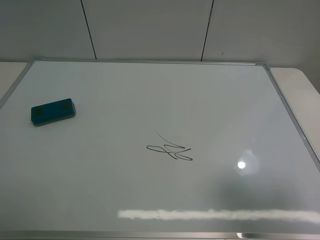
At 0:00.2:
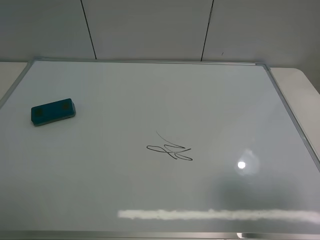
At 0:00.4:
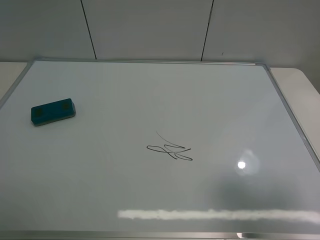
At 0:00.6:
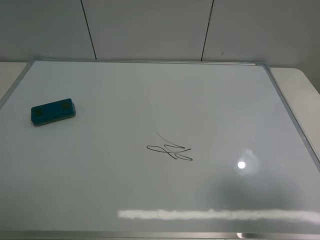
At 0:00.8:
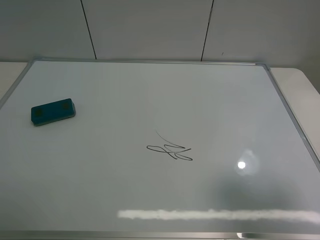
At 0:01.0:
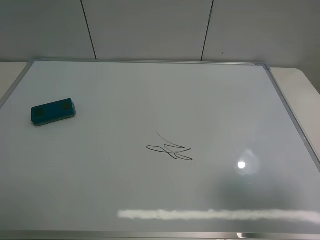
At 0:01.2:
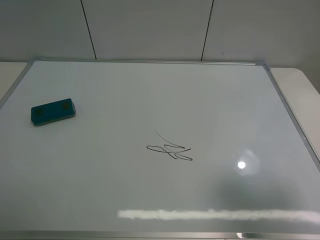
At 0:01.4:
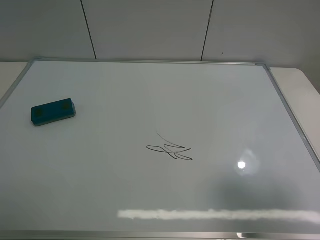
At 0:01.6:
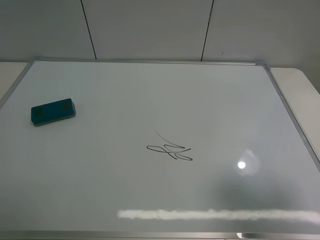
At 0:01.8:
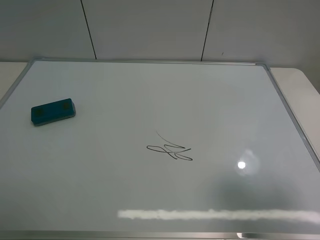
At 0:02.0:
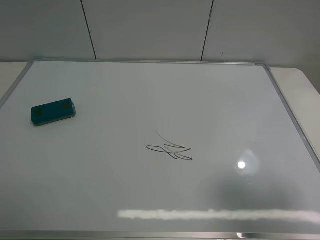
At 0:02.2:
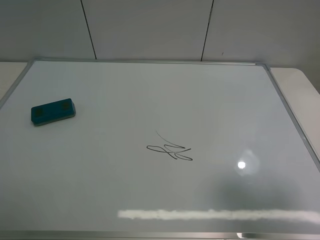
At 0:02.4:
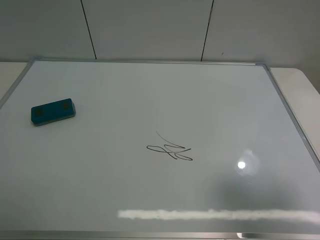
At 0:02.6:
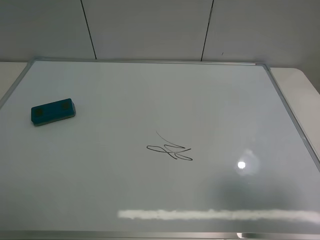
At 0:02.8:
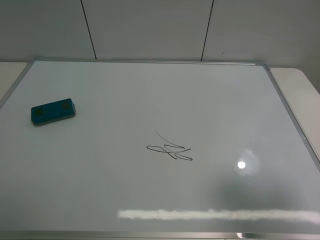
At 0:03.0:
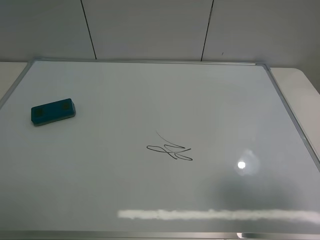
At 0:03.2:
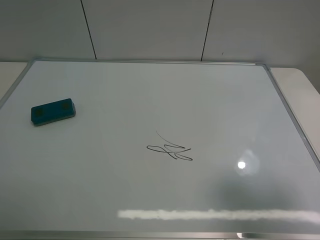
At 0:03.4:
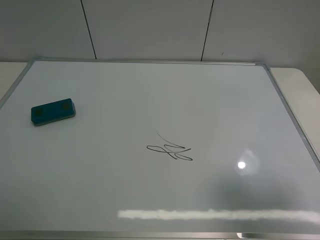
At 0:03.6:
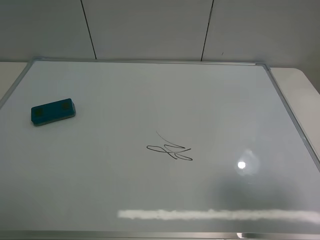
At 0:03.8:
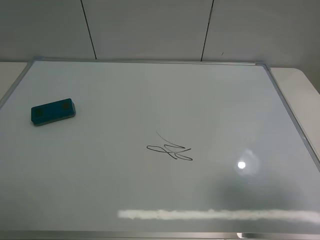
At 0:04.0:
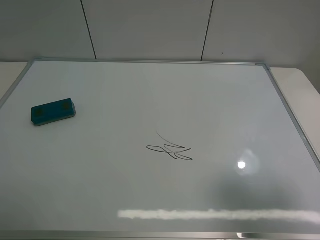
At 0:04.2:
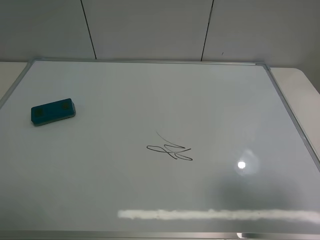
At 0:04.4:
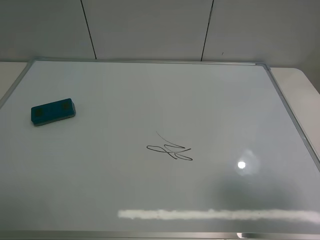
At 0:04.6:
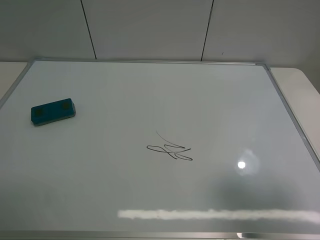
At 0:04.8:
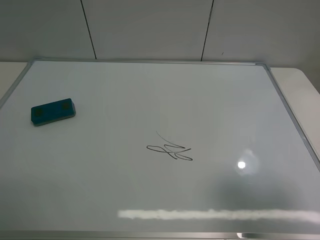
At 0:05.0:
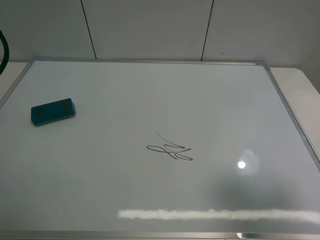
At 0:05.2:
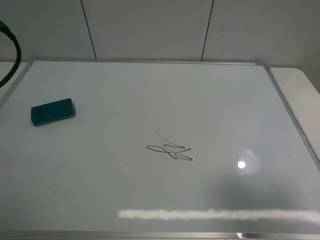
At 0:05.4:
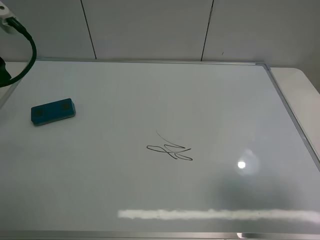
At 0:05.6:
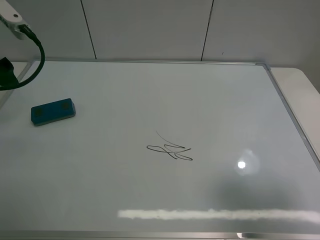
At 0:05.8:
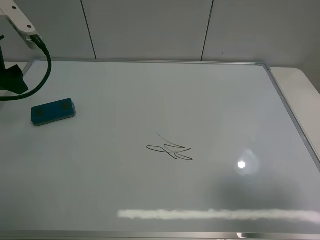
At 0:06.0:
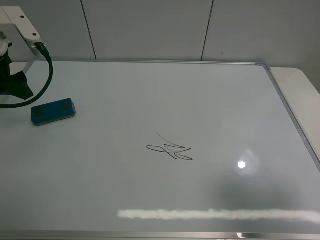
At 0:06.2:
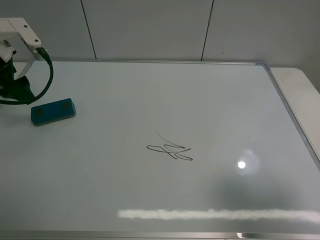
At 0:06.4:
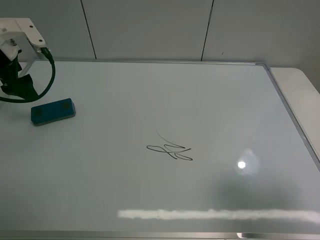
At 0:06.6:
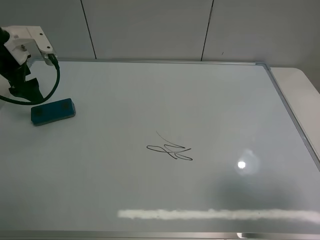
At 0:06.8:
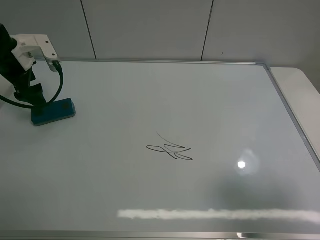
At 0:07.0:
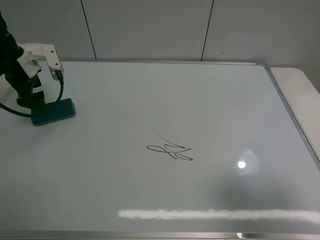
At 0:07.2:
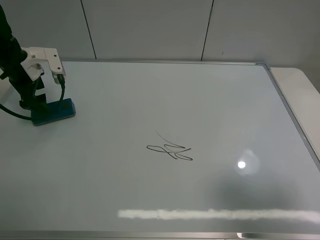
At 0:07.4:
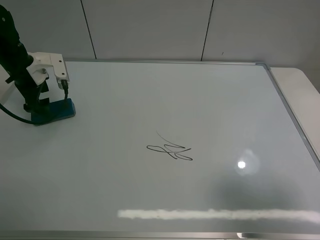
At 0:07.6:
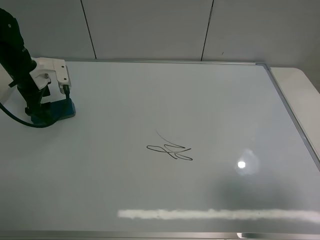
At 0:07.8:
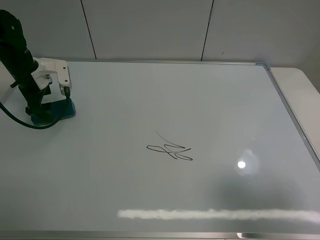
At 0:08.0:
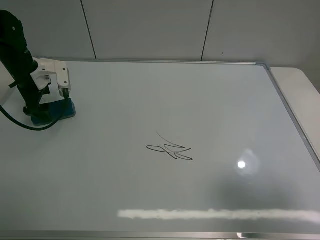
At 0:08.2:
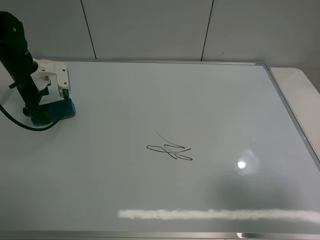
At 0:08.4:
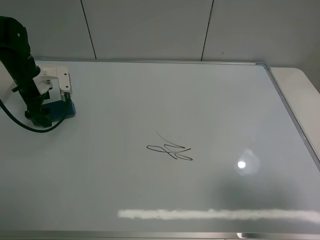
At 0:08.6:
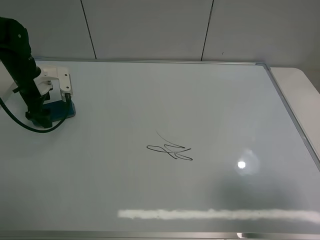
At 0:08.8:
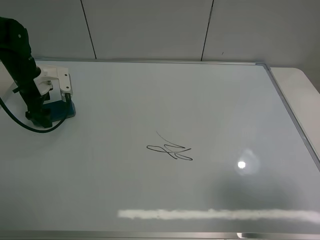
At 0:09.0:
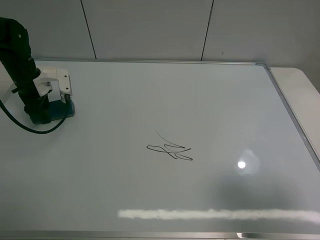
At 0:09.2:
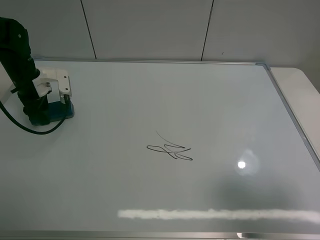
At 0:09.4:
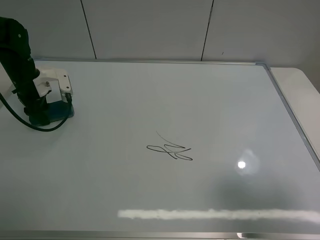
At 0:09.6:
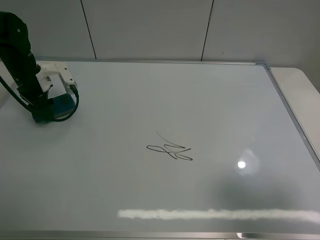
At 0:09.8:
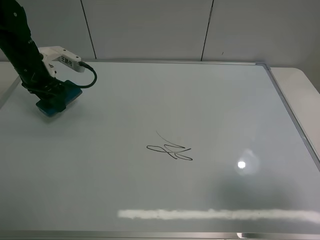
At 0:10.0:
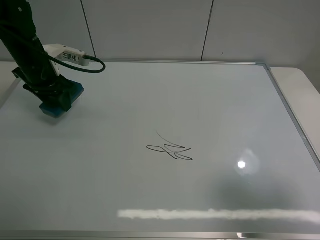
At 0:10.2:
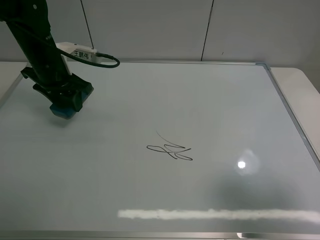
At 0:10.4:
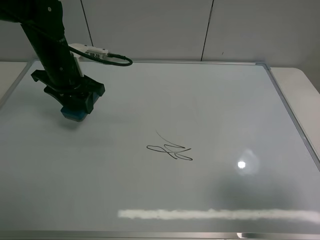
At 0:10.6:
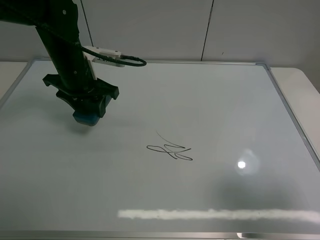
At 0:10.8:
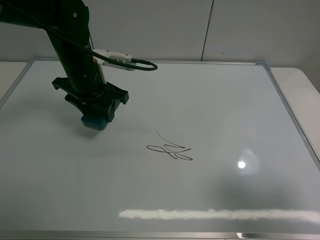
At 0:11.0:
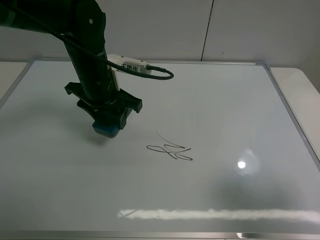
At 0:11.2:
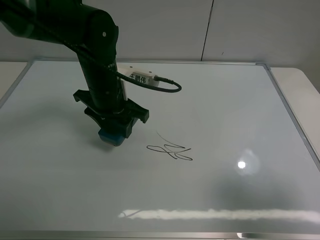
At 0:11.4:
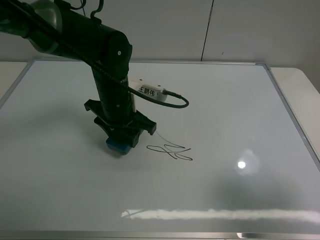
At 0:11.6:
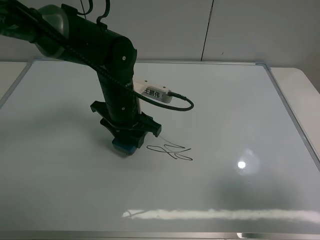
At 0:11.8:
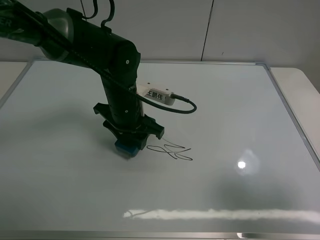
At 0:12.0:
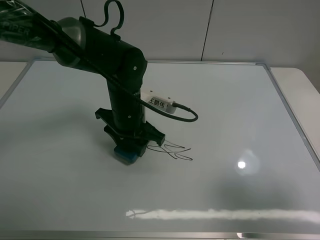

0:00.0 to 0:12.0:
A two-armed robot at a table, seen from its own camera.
Task of the whole recording: use the left claw to pick up the whiteboard eraser, wipe the notes on the whiteboard clean, and then put them back in place.
Step, 0:00.0 to 0:09.0: Grasp the eraser with the left gripper.
0:00.0 to 0:03.0: Both grippers stay put.
0:04.4 to 0:06.0: The left gripper is displaced forward and downward by roughly 20 cm.
0:06.0 to 0:07.6: The left gripper shifts about 15 cm downward and forward.
0:07.6 to 0:09.0: The left gripper closes its fingers.
0:09.0 to 0:10.4: The left gripper moves to the right and upward, roughly 15 cm.
0:10.4 to 0:12.0: The left gripper shifts about 15 cm to the right, downward and backward.

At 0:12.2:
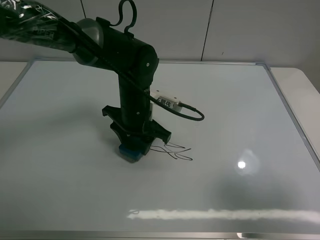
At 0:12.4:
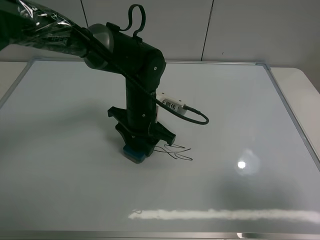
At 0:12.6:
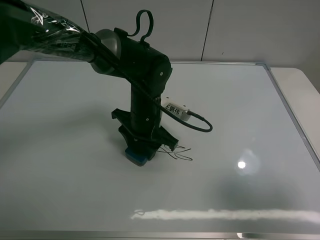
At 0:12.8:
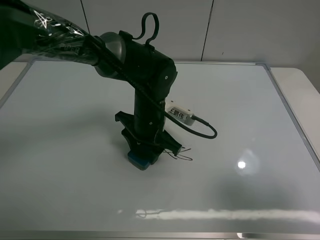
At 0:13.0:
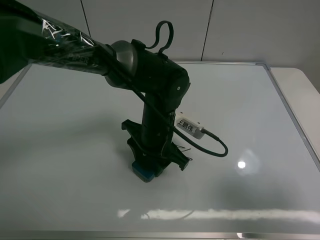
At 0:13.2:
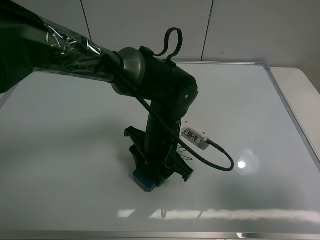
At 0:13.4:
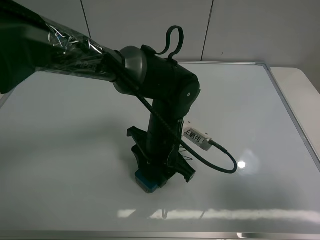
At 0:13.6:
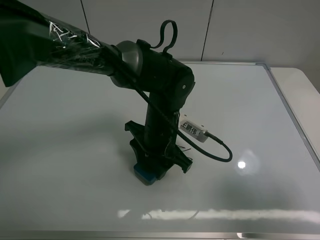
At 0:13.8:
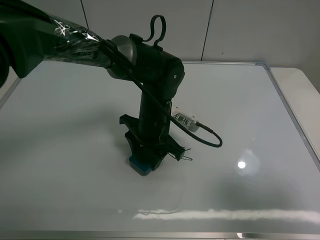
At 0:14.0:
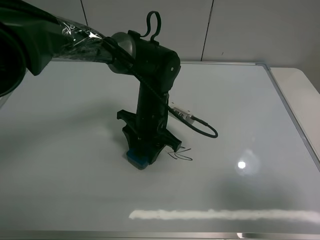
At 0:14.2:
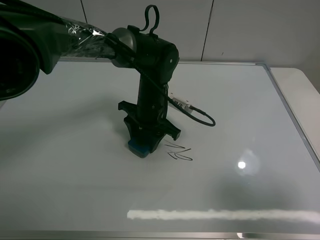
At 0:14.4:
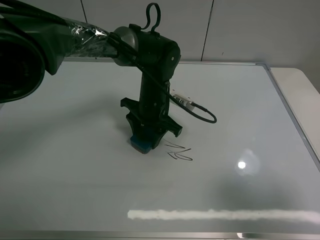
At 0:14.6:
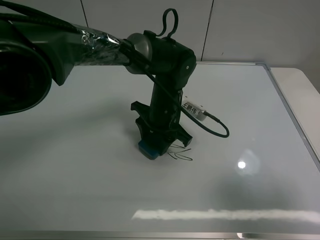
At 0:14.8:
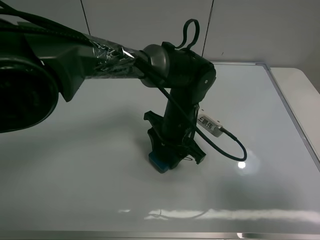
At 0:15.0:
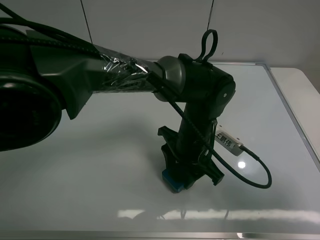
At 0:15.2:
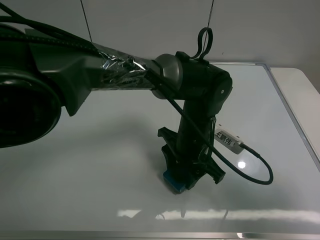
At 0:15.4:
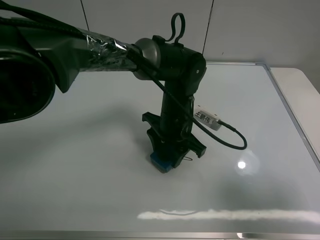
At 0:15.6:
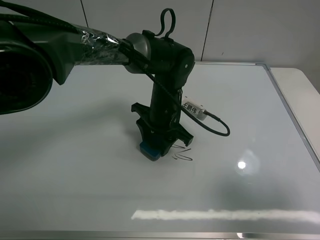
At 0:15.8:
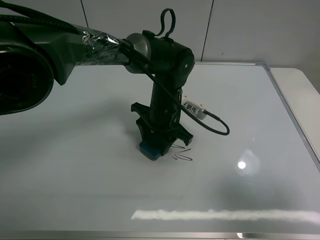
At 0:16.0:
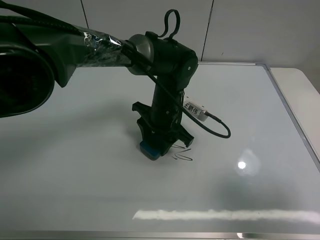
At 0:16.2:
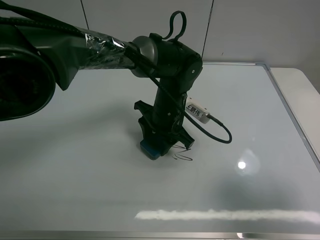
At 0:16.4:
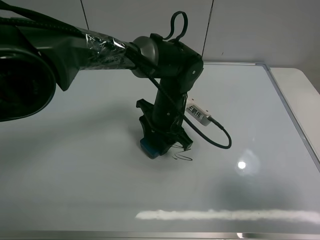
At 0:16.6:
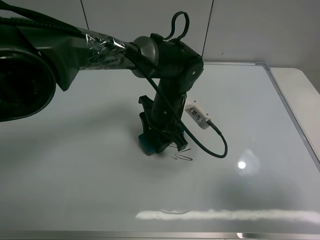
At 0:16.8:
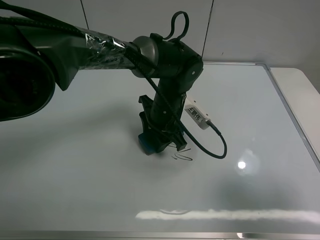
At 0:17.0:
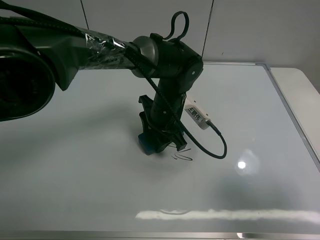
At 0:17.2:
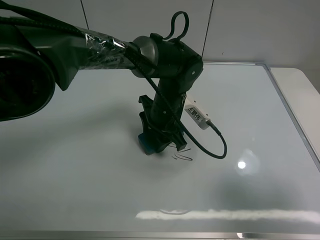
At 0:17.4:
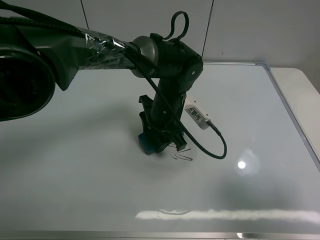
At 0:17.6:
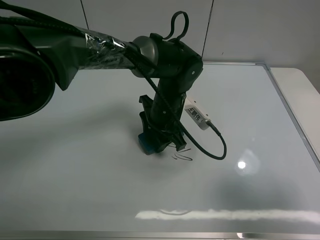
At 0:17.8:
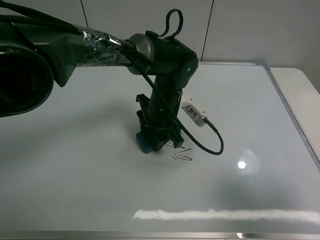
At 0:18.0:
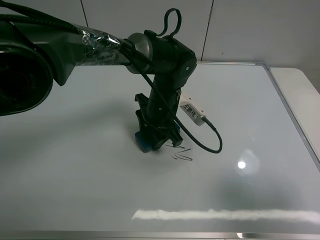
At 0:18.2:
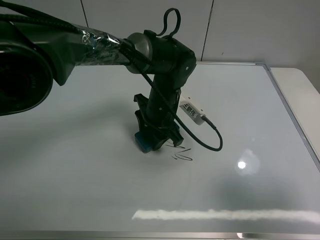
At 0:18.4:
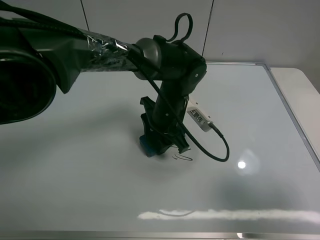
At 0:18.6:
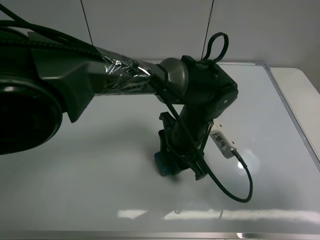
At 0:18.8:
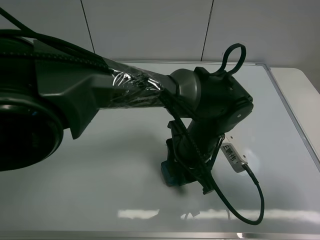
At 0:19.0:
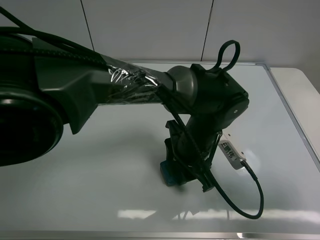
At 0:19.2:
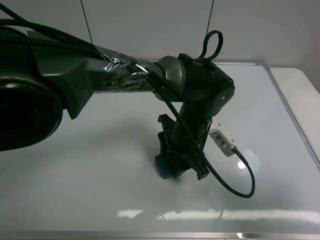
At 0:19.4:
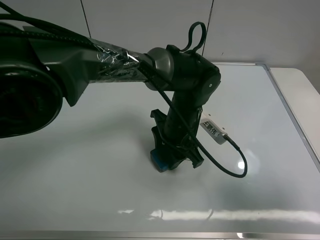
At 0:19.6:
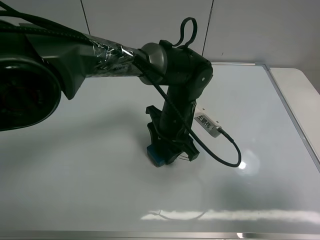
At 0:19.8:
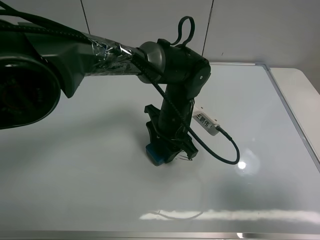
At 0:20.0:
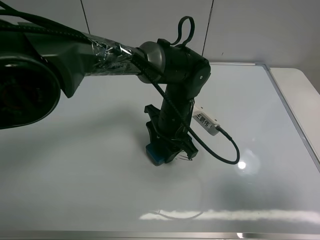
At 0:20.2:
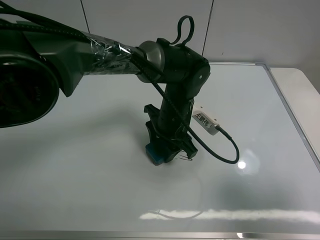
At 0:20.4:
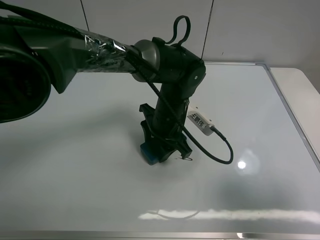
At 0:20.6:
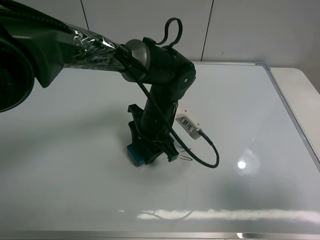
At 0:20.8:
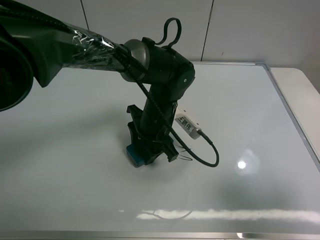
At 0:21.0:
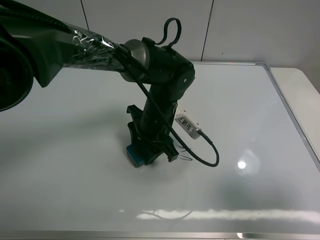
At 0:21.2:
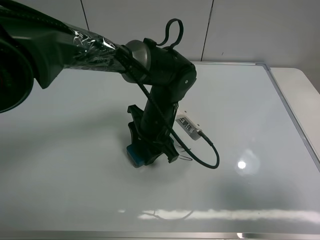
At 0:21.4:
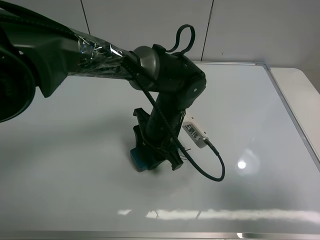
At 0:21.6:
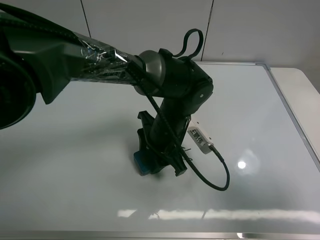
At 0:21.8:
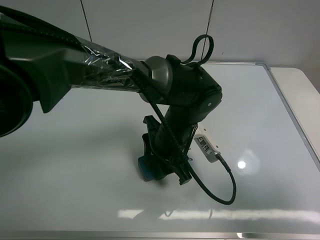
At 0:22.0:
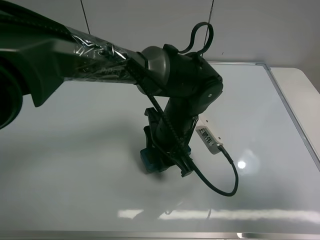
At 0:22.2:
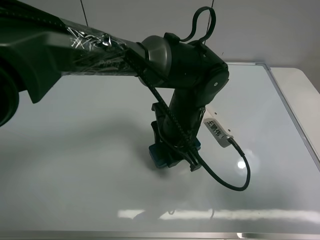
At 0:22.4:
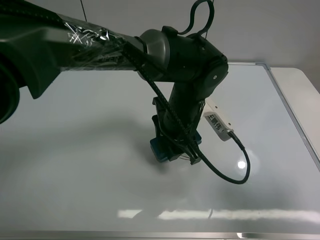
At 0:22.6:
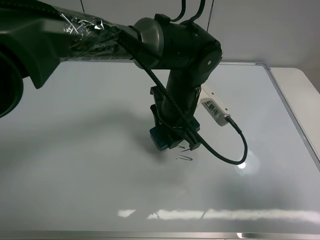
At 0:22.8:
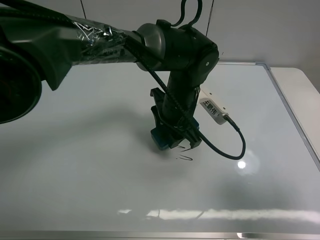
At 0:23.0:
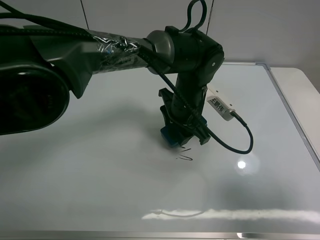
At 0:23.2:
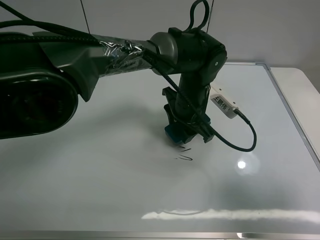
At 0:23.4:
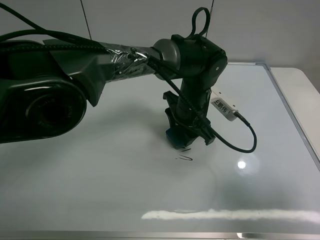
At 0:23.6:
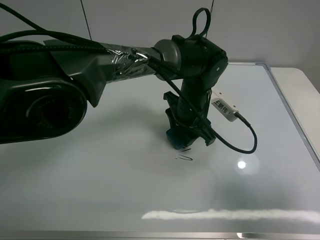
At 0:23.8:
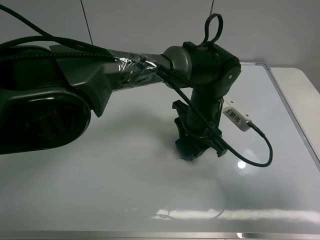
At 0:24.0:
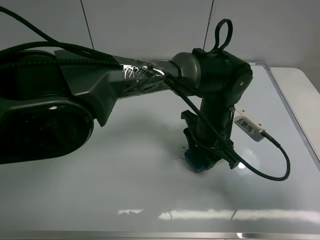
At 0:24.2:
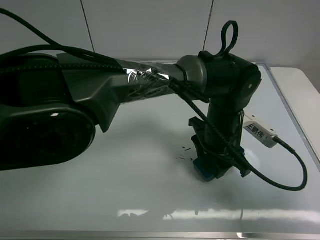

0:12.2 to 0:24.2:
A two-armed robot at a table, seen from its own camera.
Task of the whole recording: use the left claw to pick up the whiteboard eraser, wipe the notes on the whiteboard clean, and then put them back in place.
0:13.8 to 0:15.2: The left gripper moves to the right, roughly 10 cm.
0:15.2 to 0:16.6: The left gripper shifts about 5 cm forward.
0:16.6 to 0:18.2: Both grippers stay put.
0:18.2 to 0:19.8: The left gripper reaches approximately 10 cm backward, then returns.
0:19.8 to 0:21.2: There are only small adjustments of the grippers.
0:21.2 to 0:22.6: The left gripper goes some 5 cm upward.
0:22.6 to 0:24.2: The left gripper heads to the right, covering approximately 10 cm.
